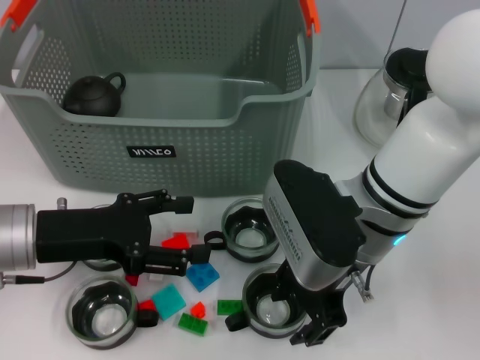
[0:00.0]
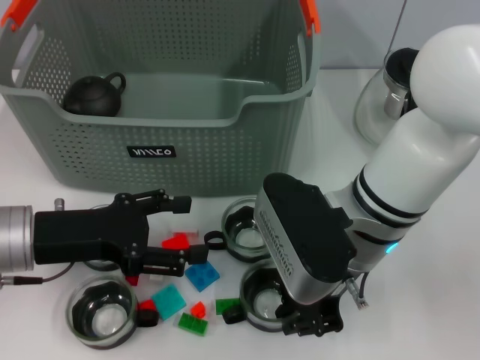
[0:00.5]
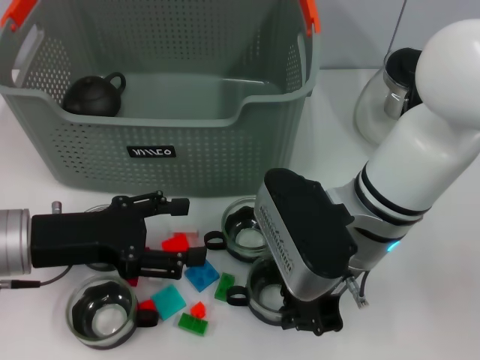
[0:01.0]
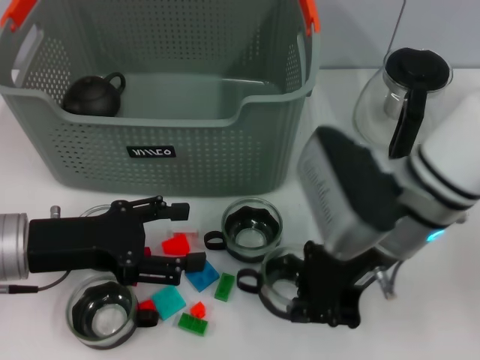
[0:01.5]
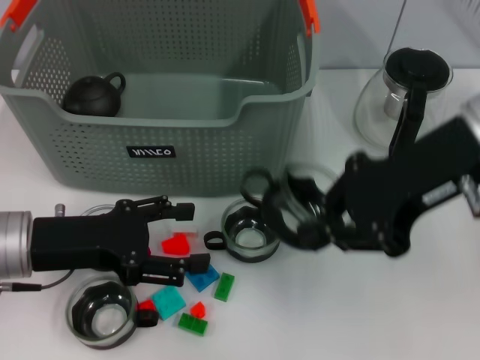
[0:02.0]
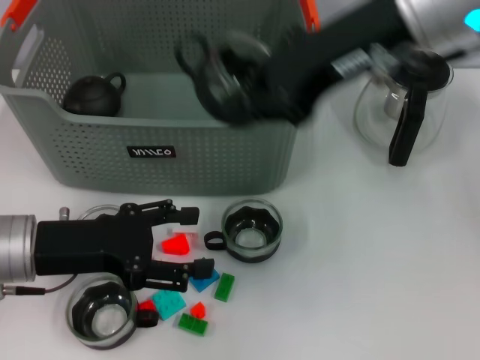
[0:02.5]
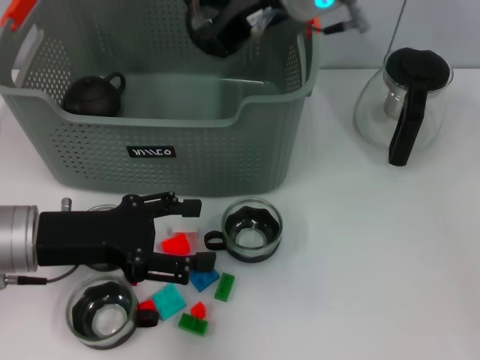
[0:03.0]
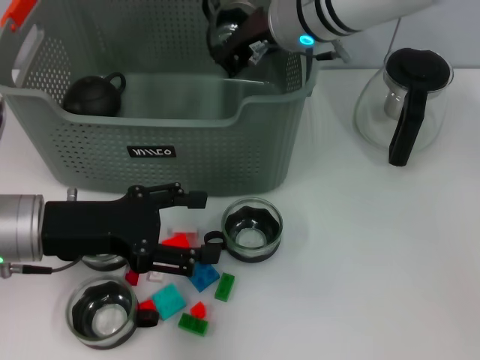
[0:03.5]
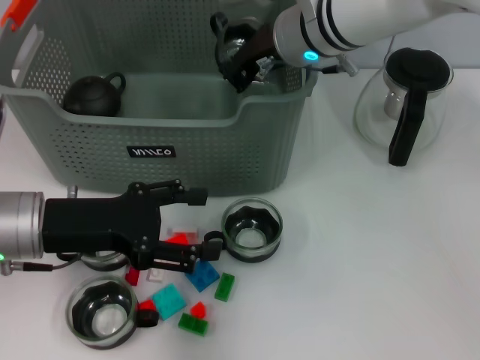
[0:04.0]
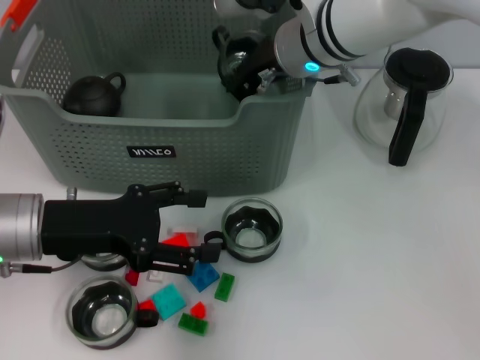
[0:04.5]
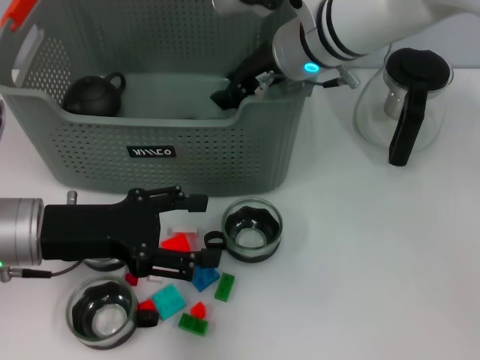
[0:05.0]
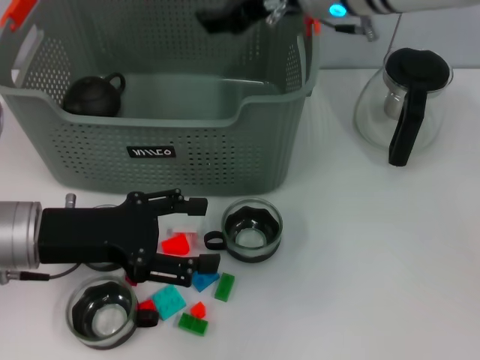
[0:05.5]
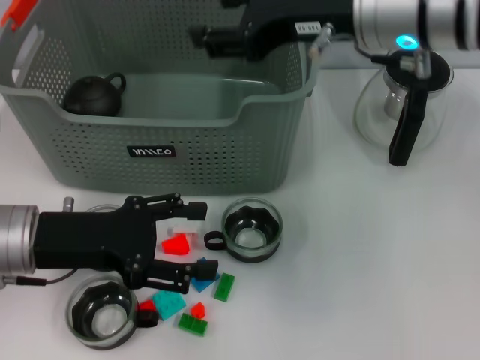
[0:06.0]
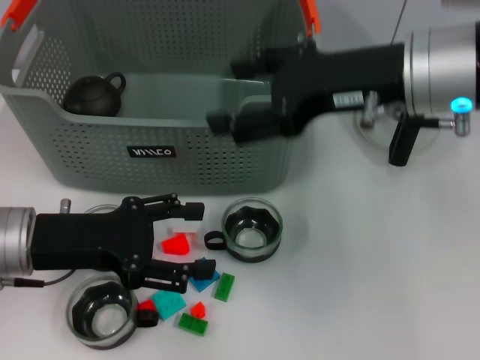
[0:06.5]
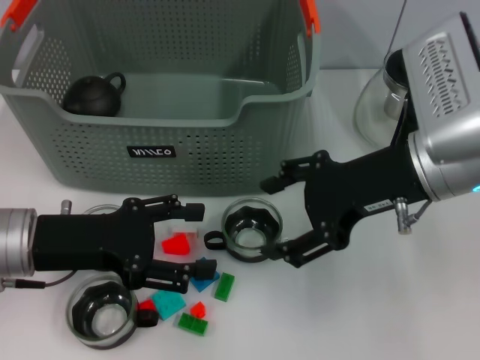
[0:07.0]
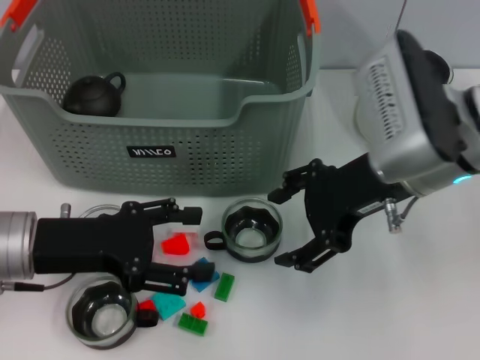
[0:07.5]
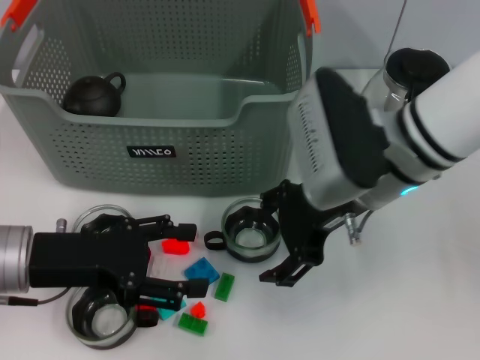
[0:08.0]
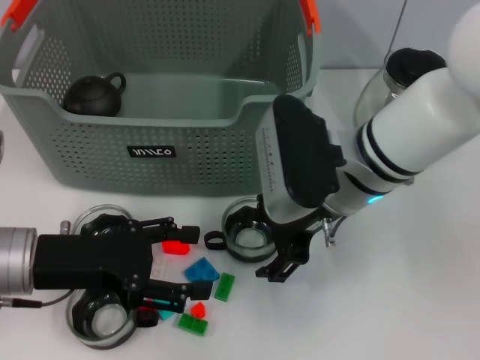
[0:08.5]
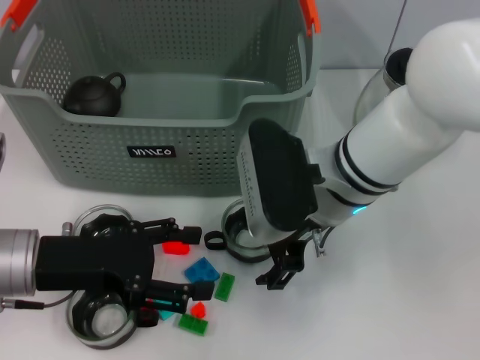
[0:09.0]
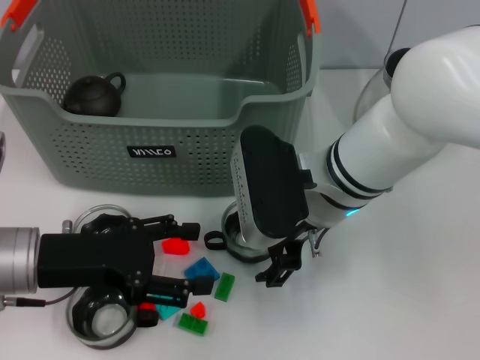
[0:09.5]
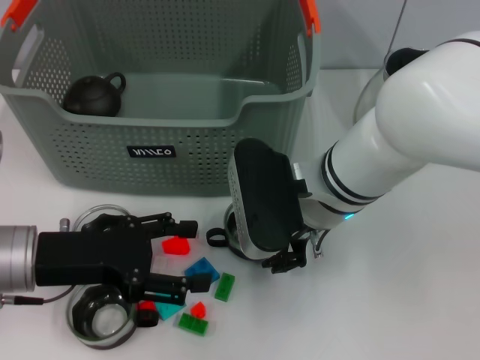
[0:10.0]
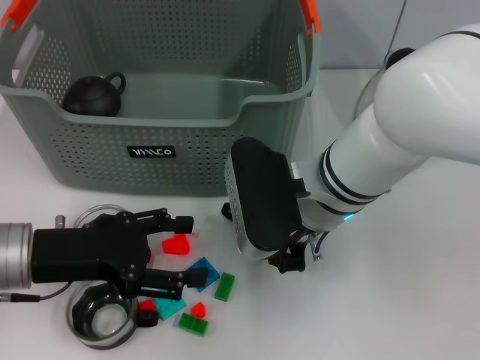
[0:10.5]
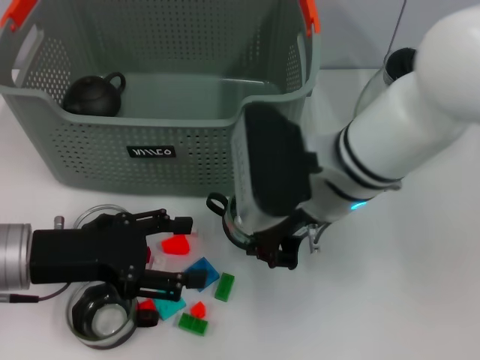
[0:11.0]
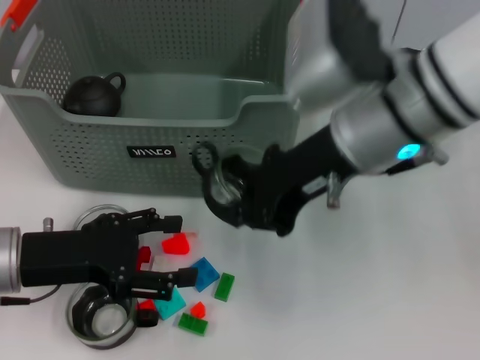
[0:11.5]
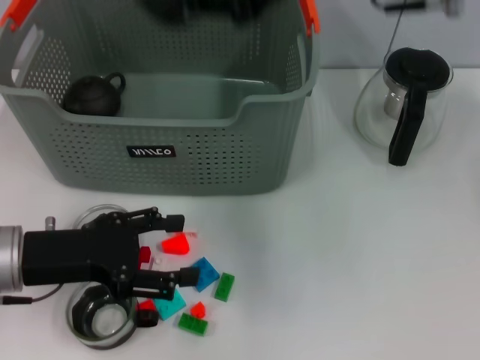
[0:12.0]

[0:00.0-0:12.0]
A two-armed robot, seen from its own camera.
Task of the whole recording: pick up the teacup on the table and place it into the storage bin, pick up the block on the table and place it into the storage bin.
Step, 1.0 to 5.0 s: Place the cup in the storage box with right gripper.
Step, 5.5 to 10.0 s: Grasp the cup with right gripper.
0.0 to 2.0 s: The right gripper shifts some 15 cm upward and to the right, and closes.
2.0 to 4.0 s: The right gripper moves forward, to the left and downward, some 20 cm.
4.0 to 6.0 s: The right gripper shifts roughly 15 cm backward, upward and to the right, and opens up.
6.0 to 8.0 s: The right gripper moves downward, roughly 10 cm.
8.0 to 10.0 s: The right gripper shifts by approximately 5 cm.
10.0 to 12.0 s: The right gripper shifts some 20 cm upward, and closes up.

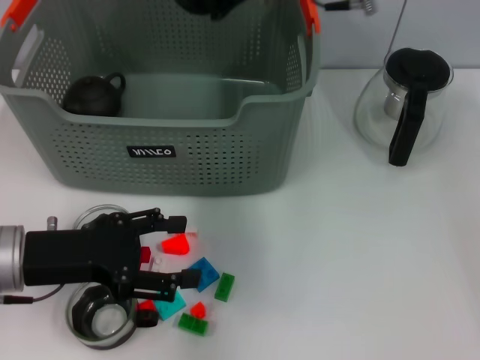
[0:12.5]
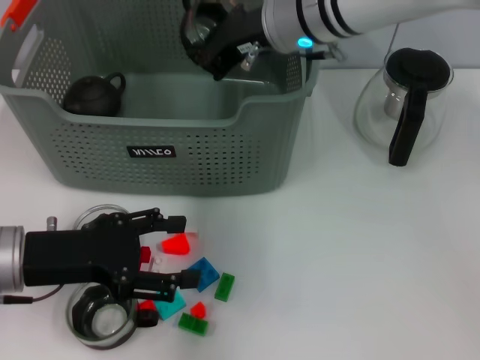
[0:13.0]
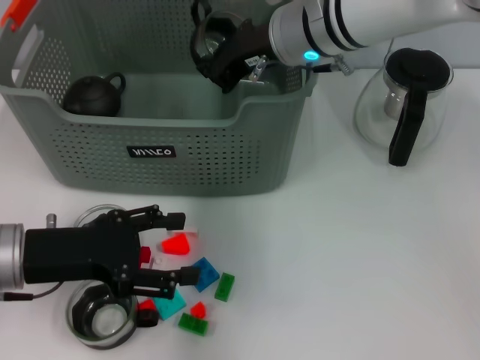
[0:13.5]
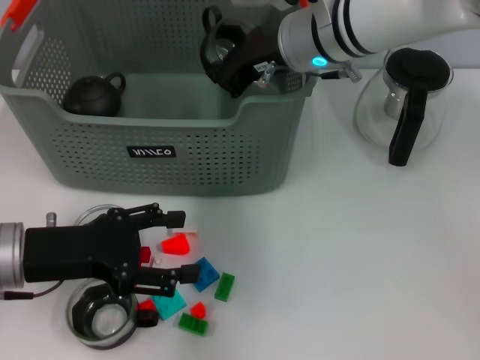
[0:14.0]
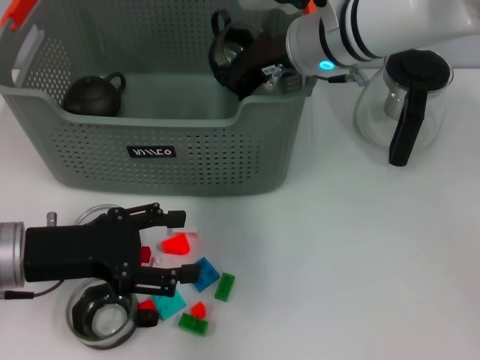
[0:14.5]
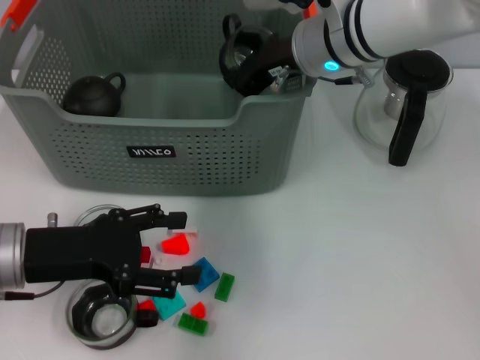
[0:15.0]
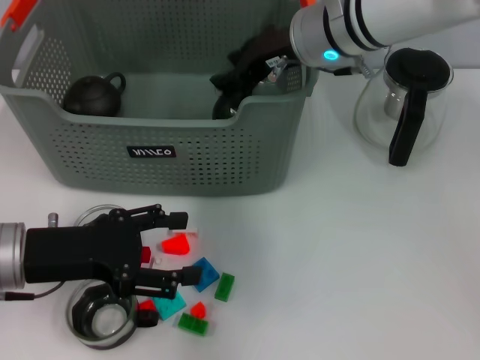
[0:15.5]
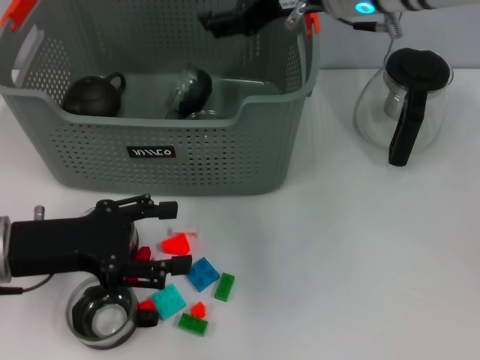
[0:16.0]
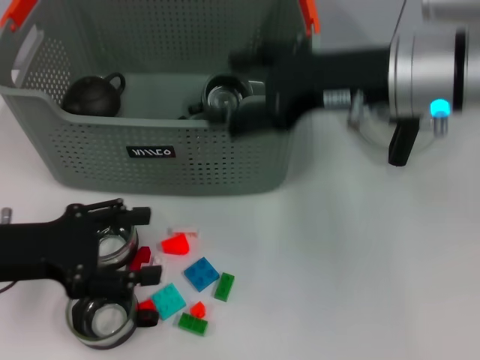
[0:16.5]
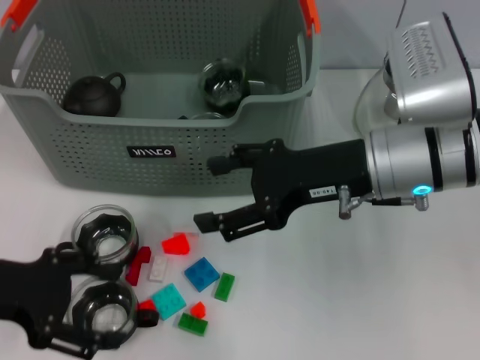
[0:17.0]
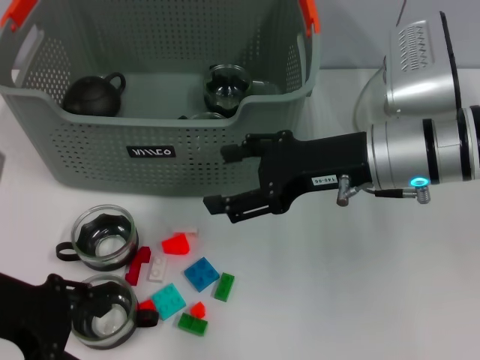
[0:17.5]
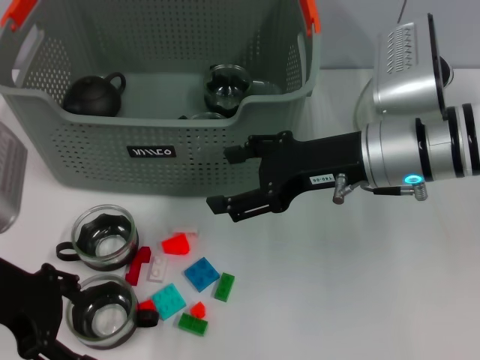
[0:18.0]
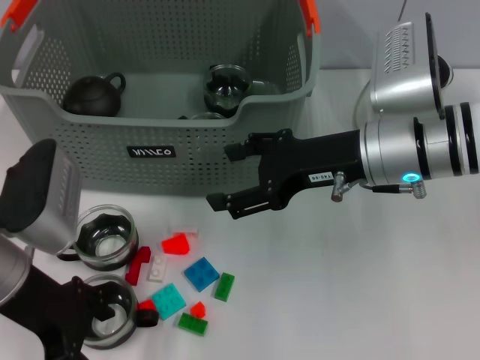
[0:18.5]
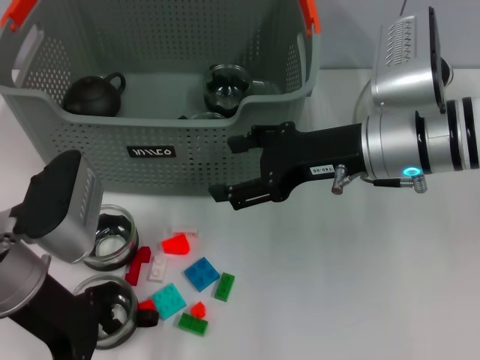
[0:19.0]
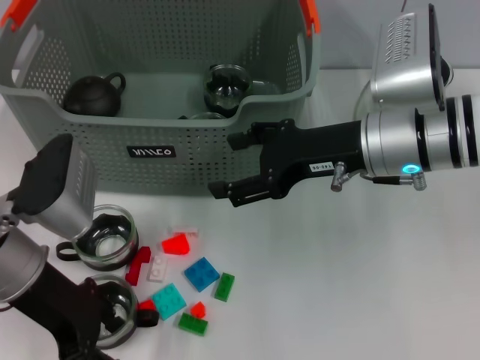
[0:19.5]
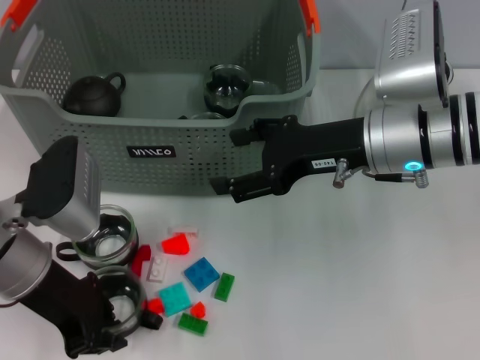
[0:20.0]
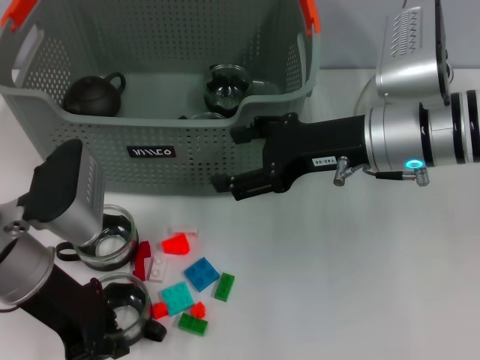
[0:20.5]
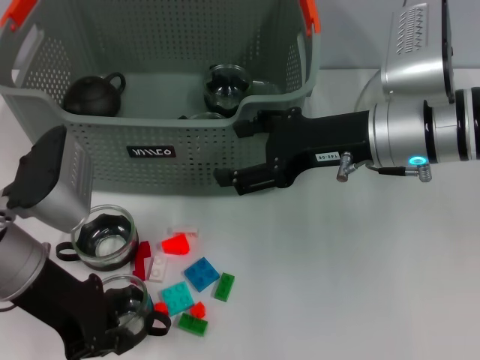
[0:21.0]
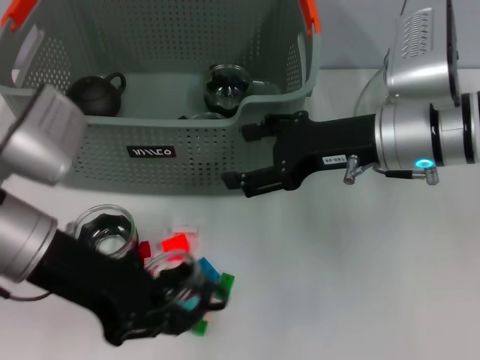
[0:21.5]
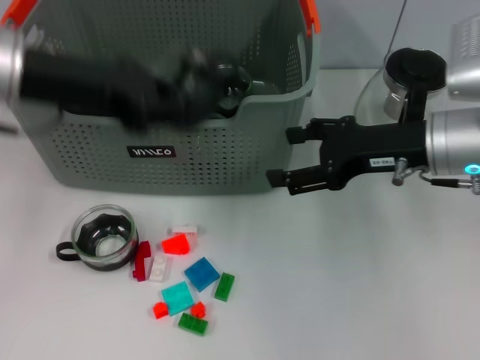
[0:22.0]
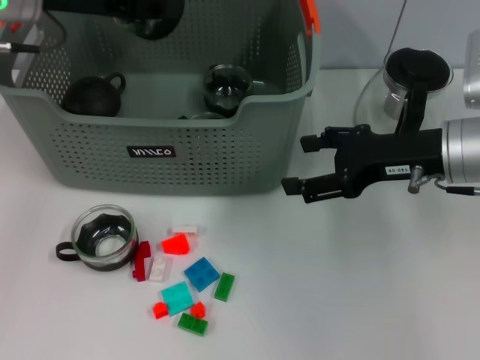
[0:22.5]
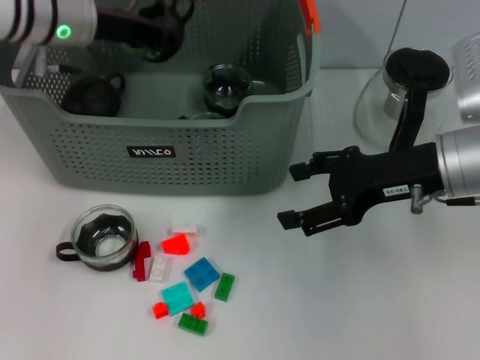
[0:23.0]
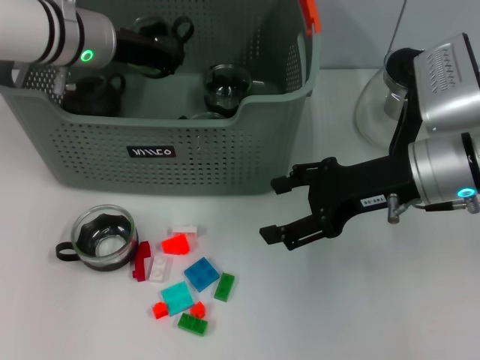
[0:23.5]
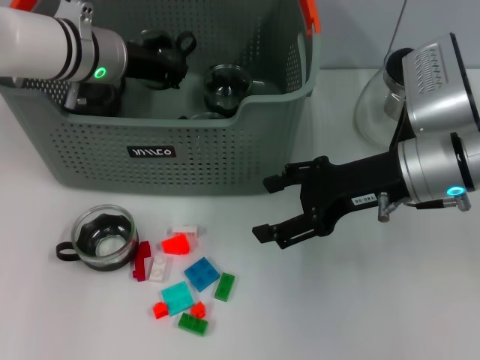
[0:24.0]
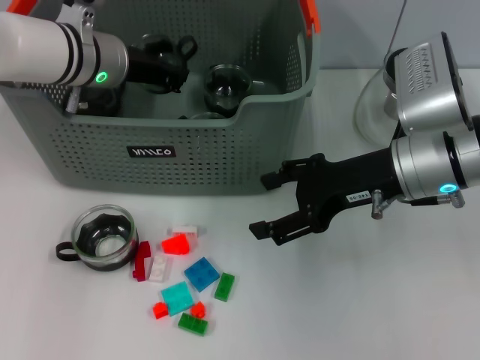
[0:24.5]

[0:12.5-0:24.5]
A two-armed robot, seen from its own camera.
Task of the whole recording: pick up the teacup on the table and place it into the storage bin, pick up the block on the table and place it into the storage bin.
Step, 12.5 to 16.0 s: Place the cup in the storage box with right gripper.
Step, 16.5 to 20.0 s: Grasp the cup with left gripper.
12.5 to 14.5 s: The right gripper goes roughly 10 cm downward.
14.5 to 16.5 s: The right gripper goes about 10 cm backward and to the right, and opens up.
16.5 to 18.5 s: The right gripper is displaced downward by about 5 cm; the left gripper moves to the right, about 5 cm.
18.5 to 20.5 s: The left gripper closes its fingers.
20.5 to 22.5 s: The left gripper travels forward and upward by about 20 cm. The right gripper is displaced to the right by some 5 cm.
22.5 to 24.5 s: The left gripper is displaced downward and to the right by some 10 cm.

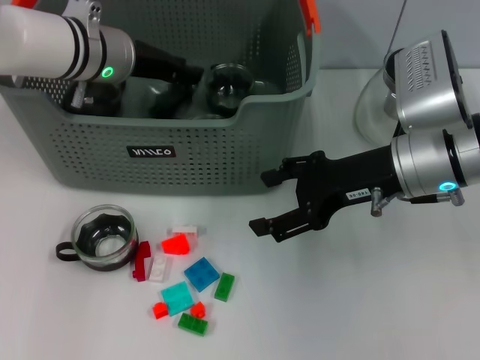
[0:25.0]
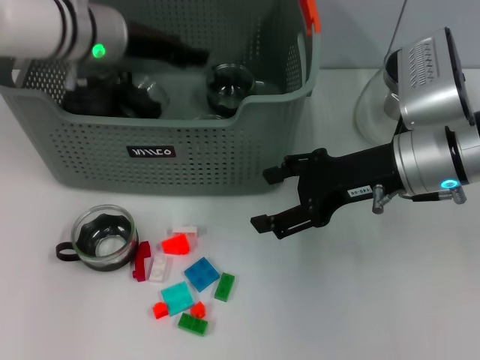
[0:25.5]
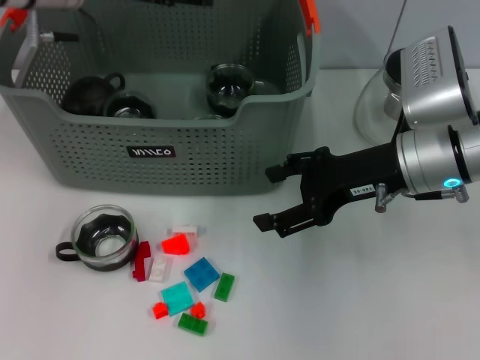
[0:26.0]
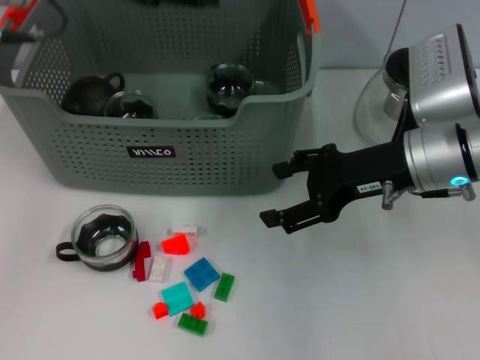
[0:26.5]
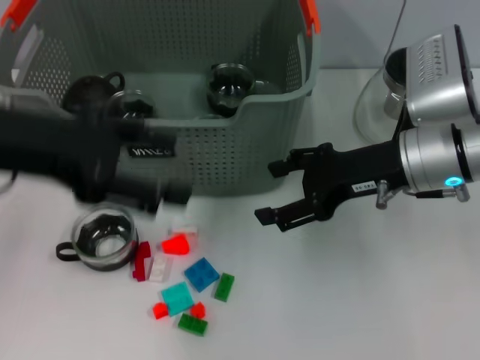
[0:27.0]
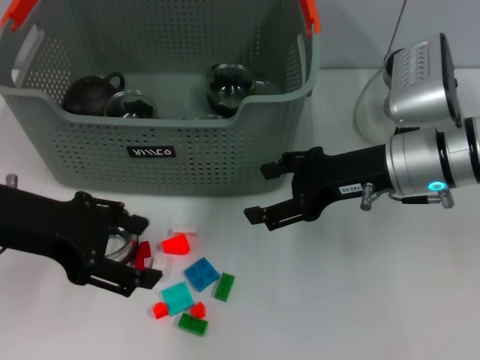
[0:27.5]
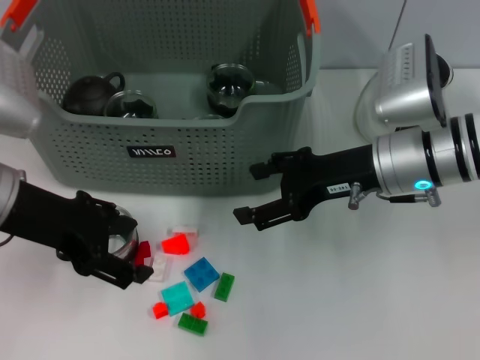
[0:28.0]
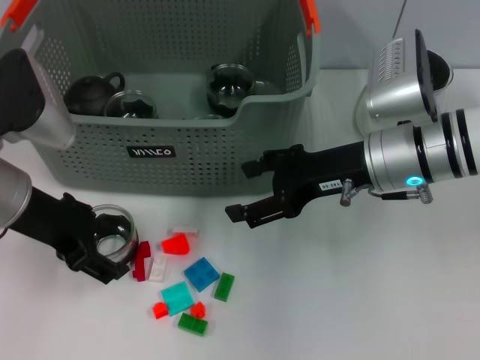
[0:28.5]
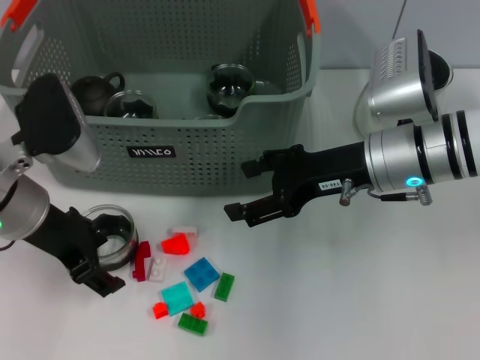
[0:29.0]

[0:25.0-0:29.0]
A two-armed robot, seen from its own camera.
Task of the whole recording: pick up the teacup on the table and place it into the storage bin, pick up the block on the table and place it into the storage bin.
25.0 to 27.0 s: The left gripper heads backward, upward and to the left, covering some 20 cm, and opens up.
27.0 to 29.0 s: The left gripper moves downward, roughly 10 cm.
